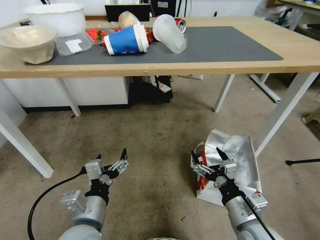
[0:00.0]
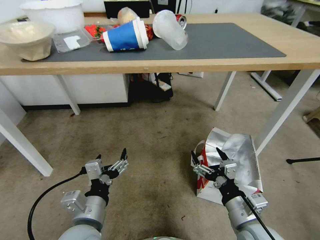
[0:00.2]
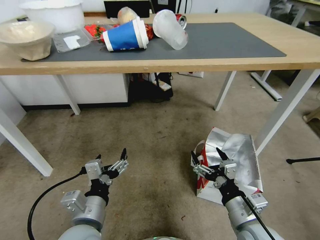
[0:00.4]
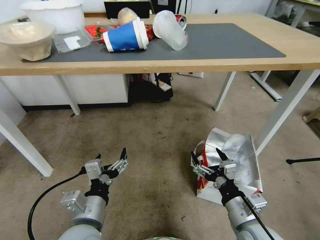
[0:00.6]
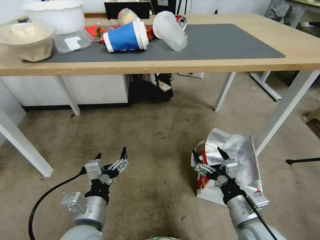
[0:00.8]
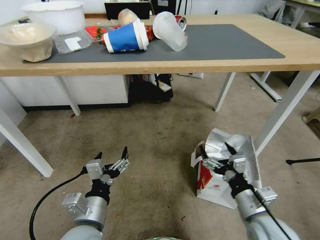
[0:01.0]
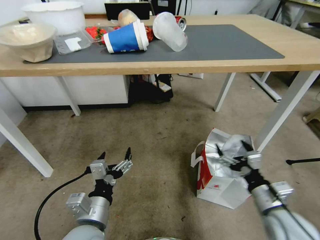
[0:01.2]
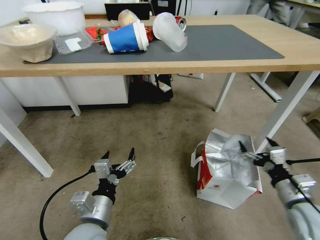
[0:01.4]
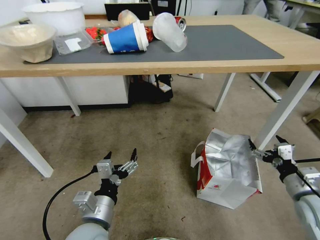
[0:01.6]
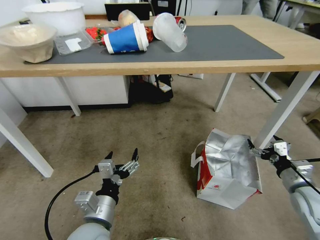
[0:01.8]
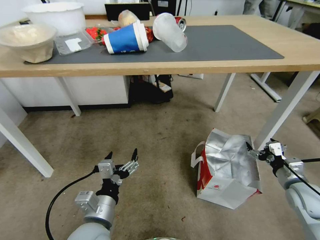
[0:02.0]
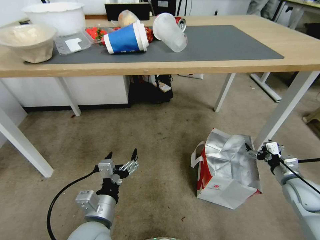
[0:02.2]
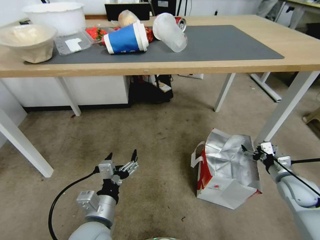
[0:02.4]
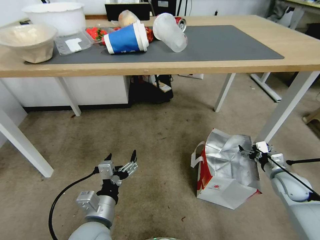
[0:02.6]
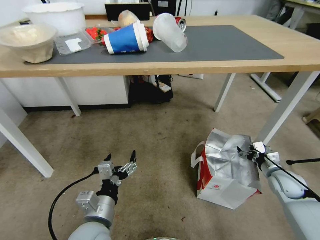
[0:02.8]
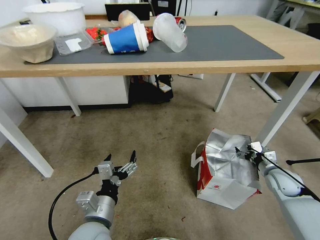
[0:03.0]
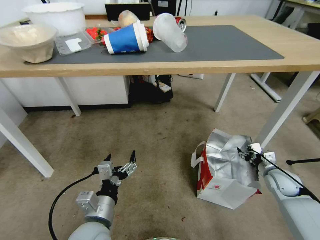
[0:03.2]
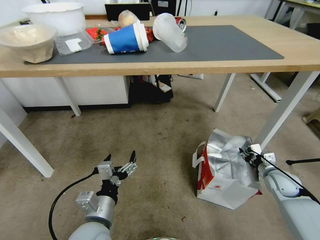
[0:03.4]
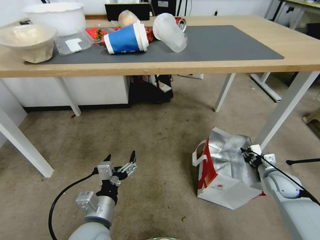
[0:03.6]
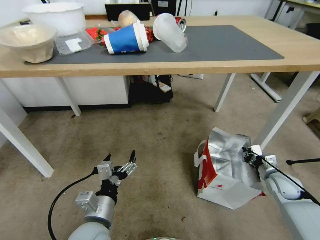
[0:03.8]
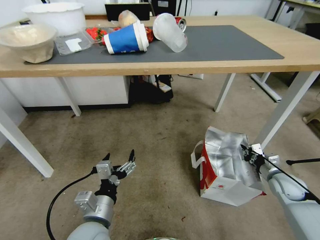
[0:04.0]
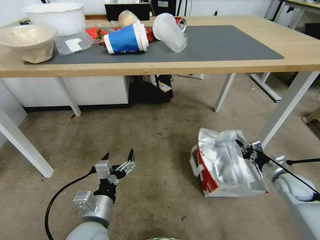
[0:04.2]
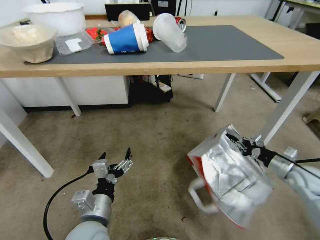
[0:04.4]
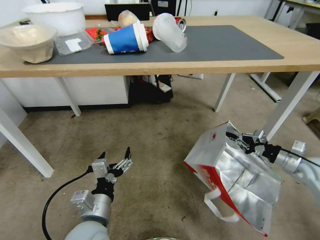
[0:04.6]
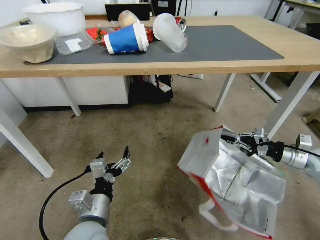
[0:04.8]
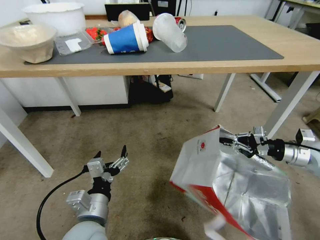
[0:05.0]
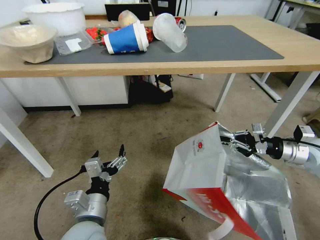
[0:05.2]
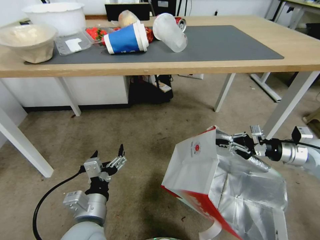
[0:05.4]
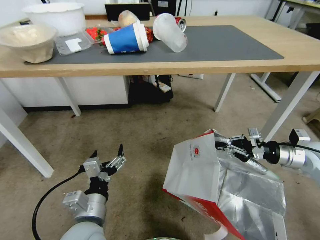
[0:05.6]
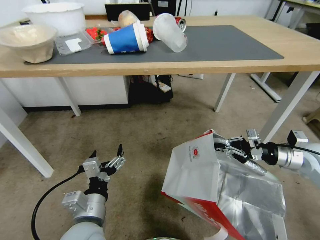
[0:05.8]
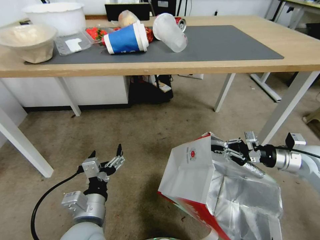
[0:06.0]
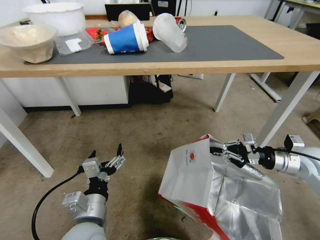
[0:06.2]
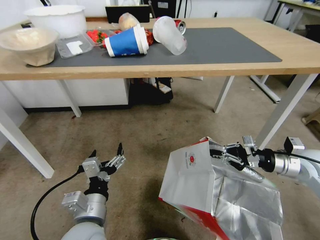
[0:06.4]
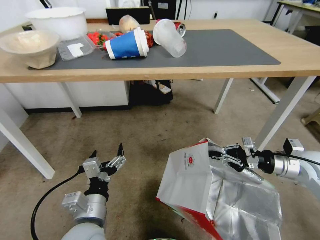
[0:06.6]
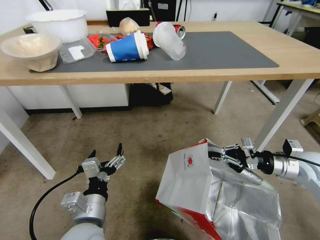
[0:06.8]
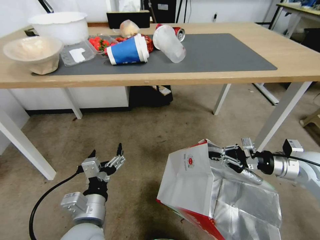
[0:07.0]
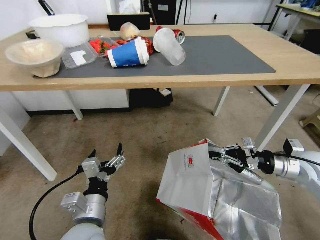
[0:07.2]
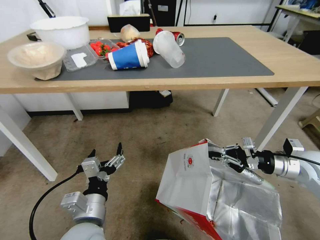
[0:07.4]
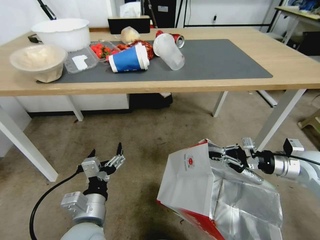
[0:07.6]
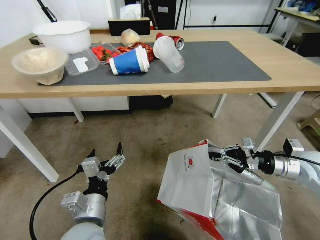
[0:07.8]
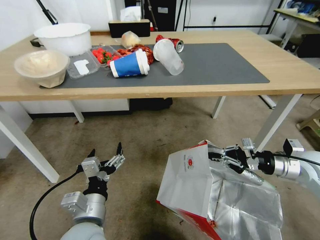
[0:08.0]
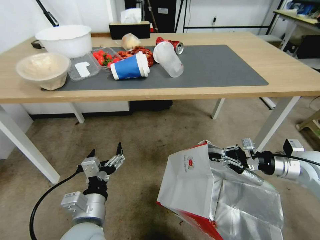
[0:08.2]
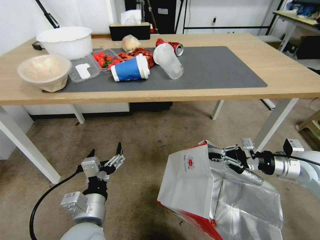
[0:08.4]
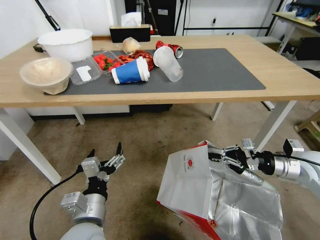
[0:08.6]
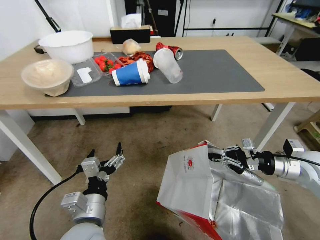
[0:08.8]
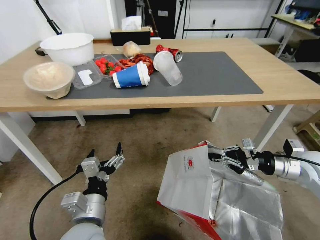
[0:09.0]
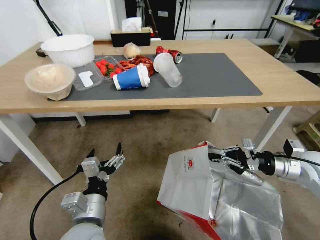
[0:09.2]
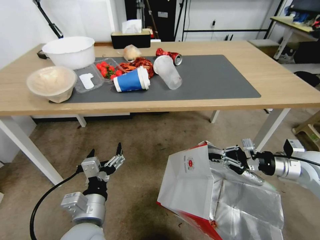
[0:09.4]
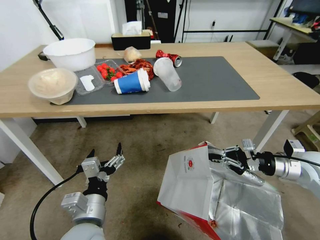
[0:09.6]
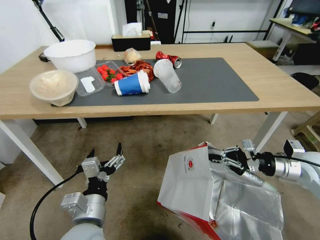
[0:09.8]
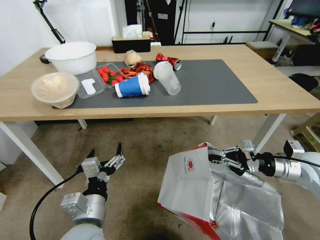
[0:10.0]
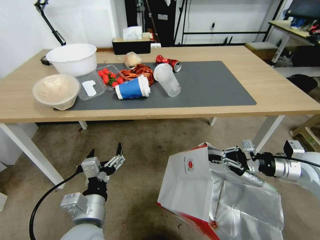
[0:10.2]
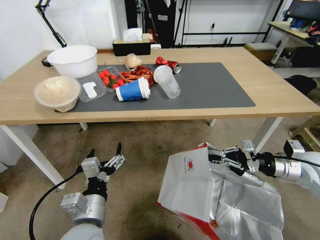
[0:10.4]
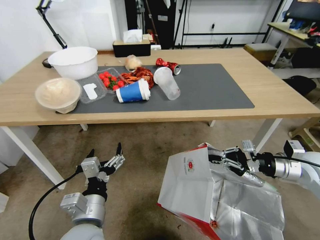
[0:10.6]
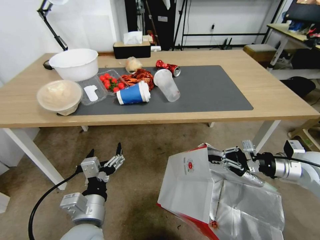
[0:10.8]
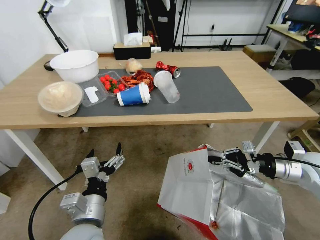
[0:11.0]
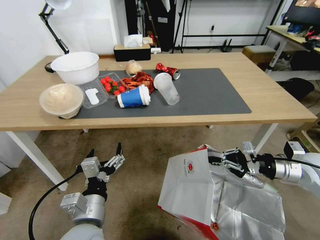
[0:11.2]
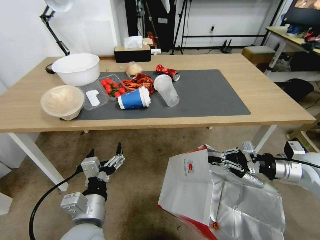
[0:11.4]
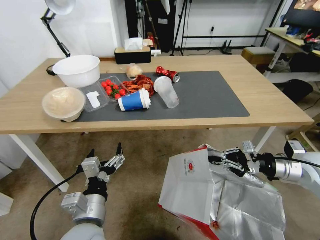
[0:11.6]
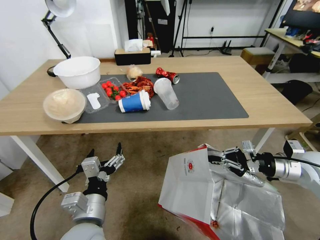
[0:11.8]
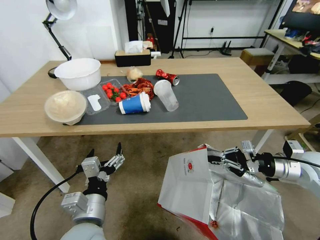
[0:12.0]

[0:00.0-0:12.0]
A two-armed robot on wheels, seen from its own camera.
Task of the whole recording: Pick up the food delivery bag from the floor and place it on the table.
0:00.0 to 0:01.6: The right gripper heads to the right, covering approximately 20 cm.
0:01.6 to 0:03.0: The right gripper is displaced forward and downward by roughly 15 cm.
0:03.0 to 0:04.4: The right gripper shifts by some 5 cm, and closes its fingers.
0:04.4 to 0:06.0: The right gripper goes about 15 cm upward and to the left.

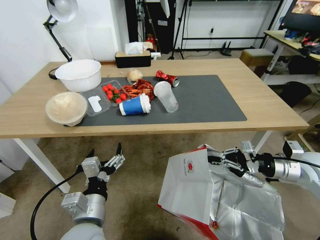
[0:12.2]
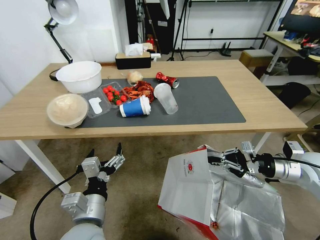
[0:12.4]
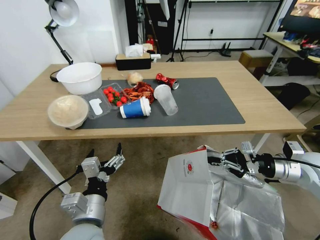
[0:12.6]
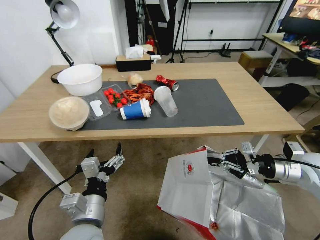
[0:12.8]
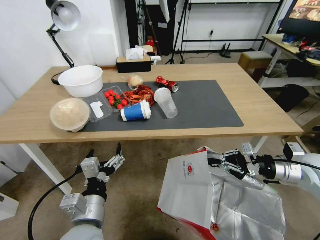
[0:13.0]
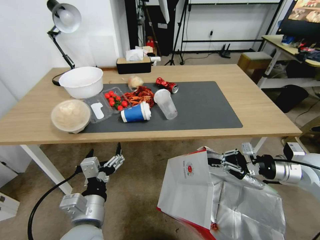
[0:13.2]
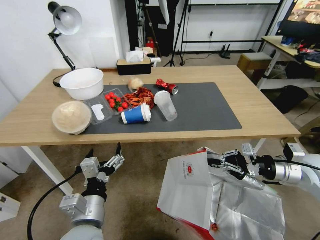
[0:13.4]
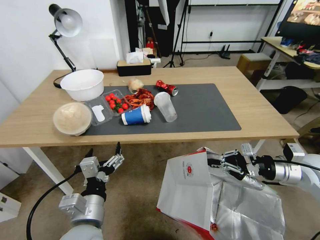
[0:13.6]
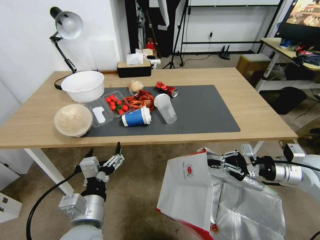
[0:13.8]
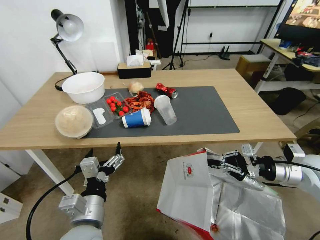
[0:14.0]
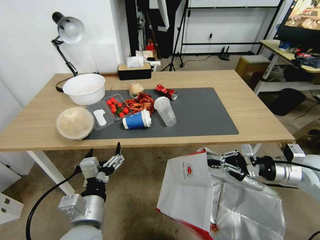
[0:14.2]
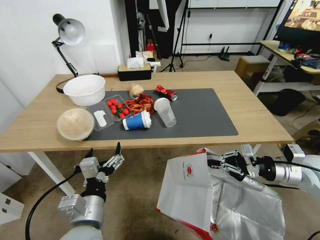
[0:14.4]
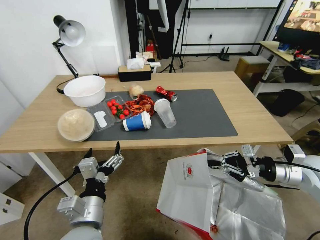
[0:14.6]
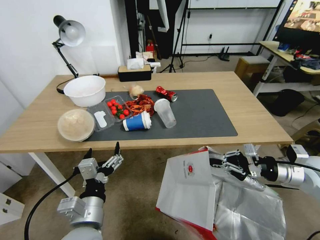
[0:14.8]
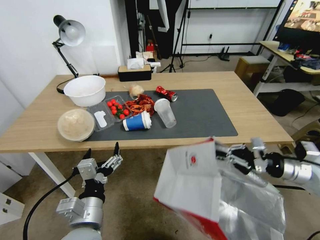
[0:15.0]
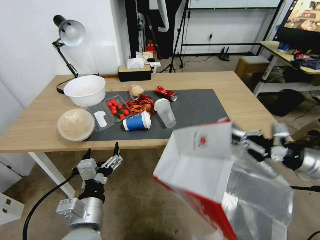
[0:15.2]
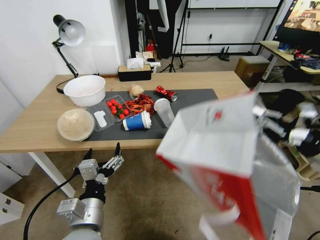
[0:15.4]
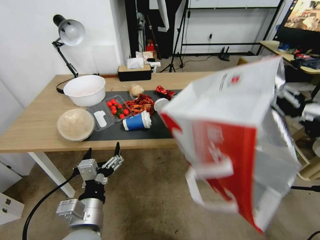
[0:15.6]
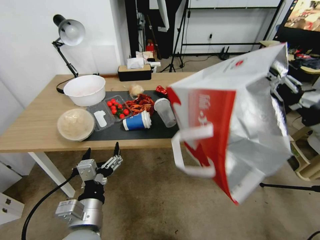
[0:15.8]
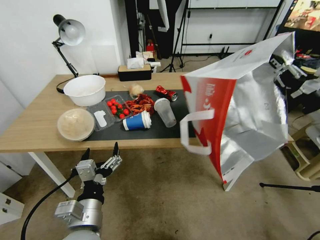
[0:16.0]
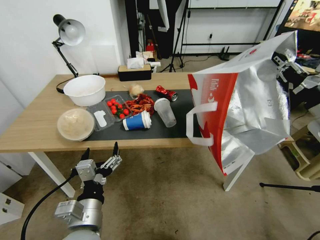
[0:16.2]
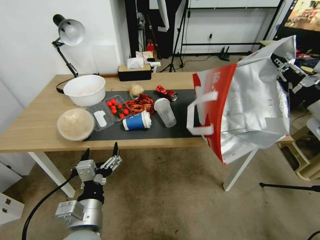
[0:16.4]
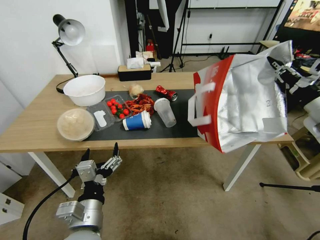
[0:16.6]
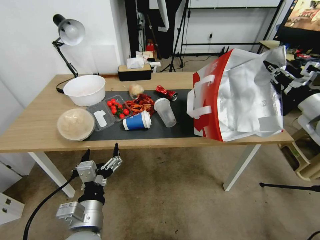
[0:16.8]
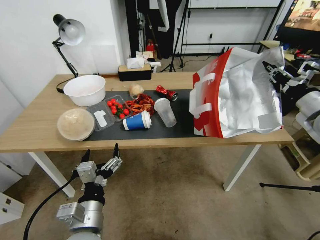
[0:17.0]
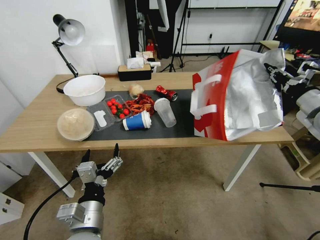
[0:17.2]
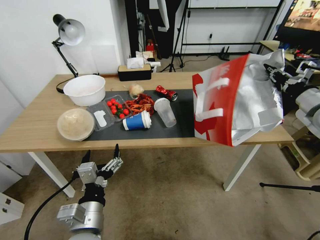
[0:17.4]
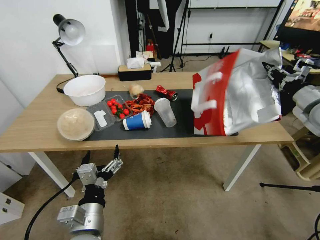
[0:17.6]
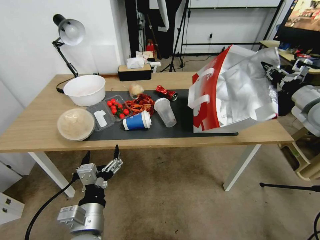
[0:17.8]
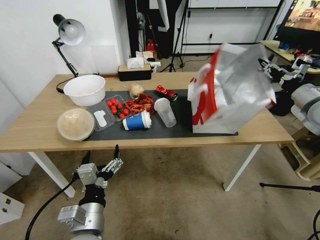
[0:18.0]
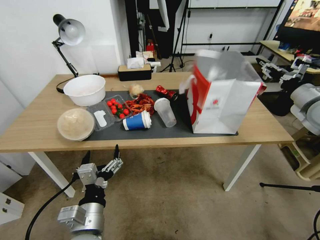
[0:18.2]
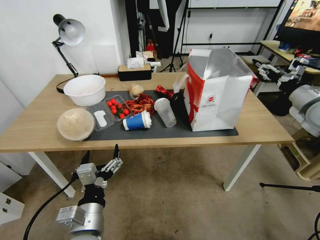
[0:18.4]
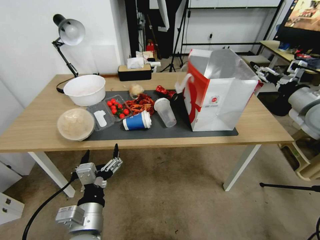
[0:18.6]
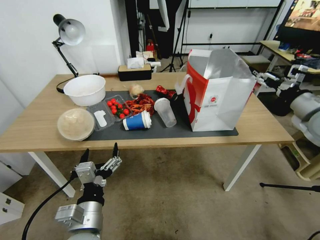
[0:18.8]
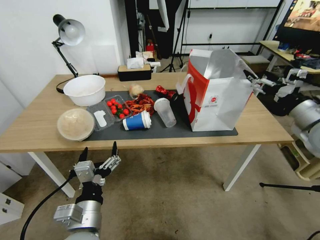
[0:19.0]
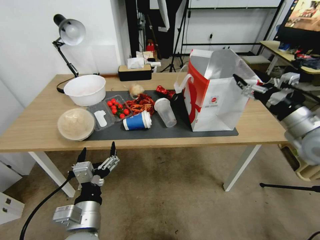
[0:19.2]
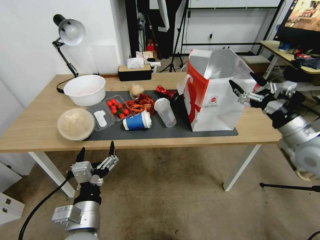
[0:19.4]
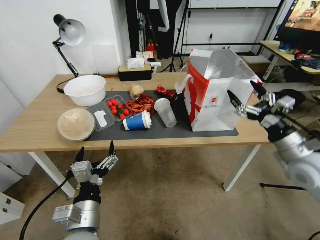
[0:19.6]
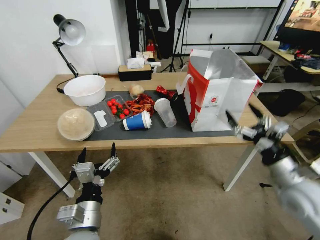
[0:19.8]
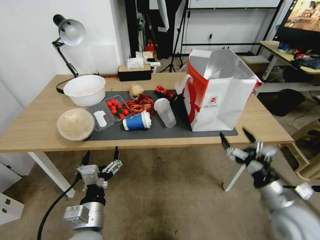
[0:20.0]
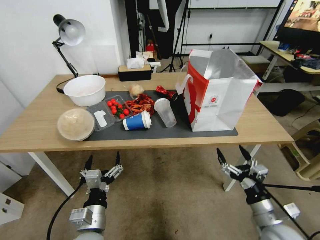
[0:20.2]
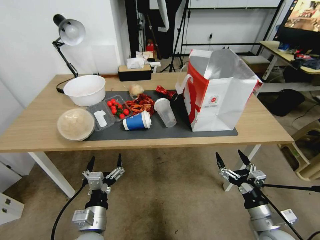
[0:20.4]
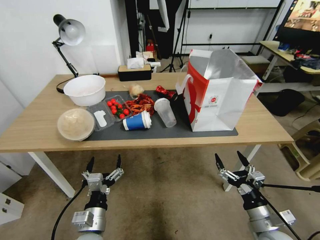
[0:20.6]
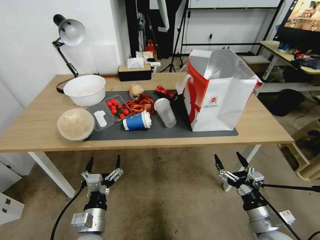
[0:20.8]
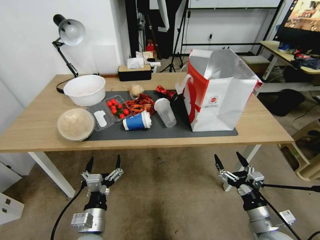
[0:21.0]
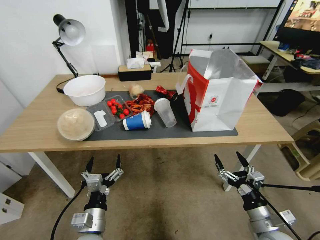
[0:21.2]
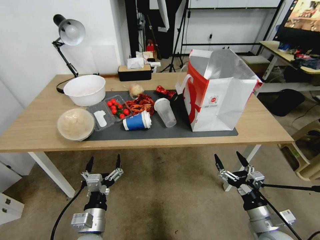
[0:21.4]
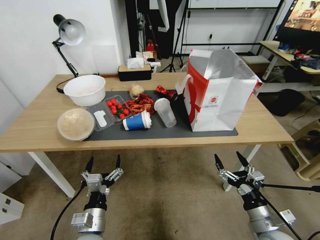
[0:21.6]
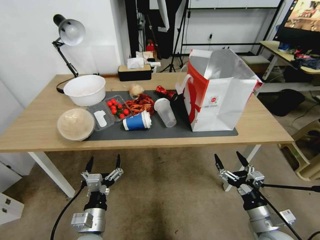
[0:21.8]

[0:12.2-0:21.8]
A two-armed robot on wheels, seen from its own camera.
Task of the whole recording: Pick up the food delivery bag from the floor and place it on the table.
0:13.8 to 0:15.4: The right gripper travels upward by about 10 cm.
0:15.4 to 0:17.0: The right gripper heads forward, covering roughly 10 cm.
0:17.0 to 0:18.6: The right gripper opens its fingers.
0:18.6 to 0:20.2: The right gripper goes approximately 35 cm downward, backward and to the left. The left gripper goes some 5 cm downward.
0:20.2 to 0:21.8: The grippers make only small movements.

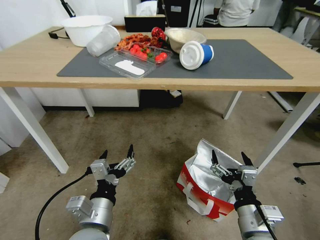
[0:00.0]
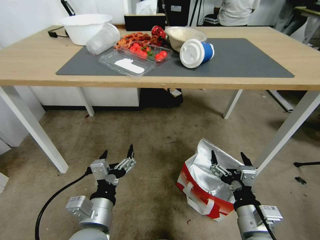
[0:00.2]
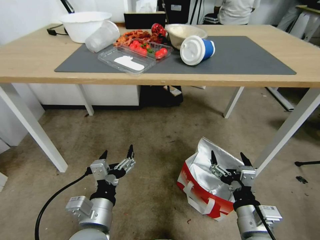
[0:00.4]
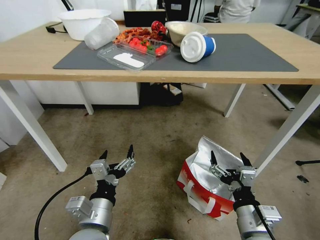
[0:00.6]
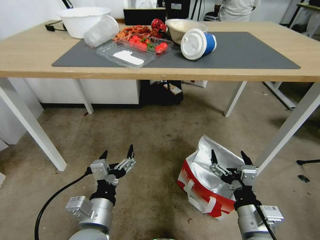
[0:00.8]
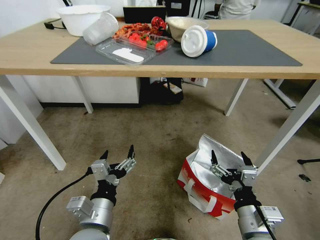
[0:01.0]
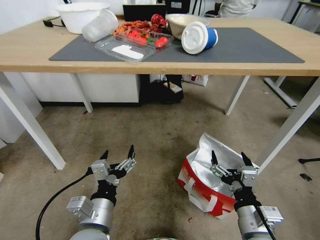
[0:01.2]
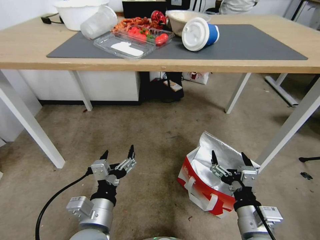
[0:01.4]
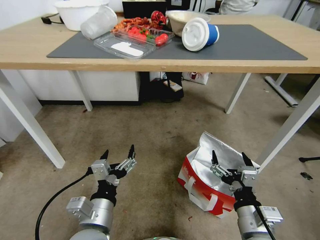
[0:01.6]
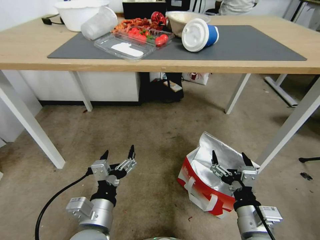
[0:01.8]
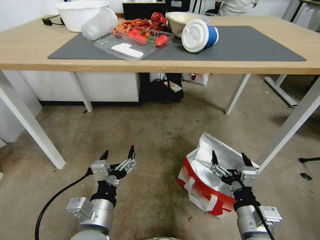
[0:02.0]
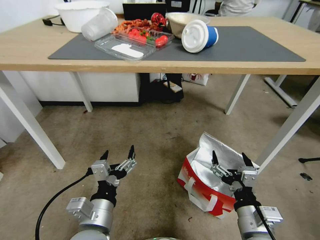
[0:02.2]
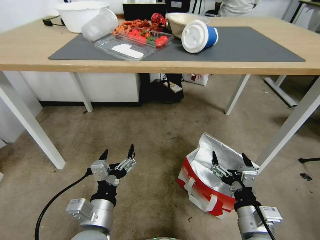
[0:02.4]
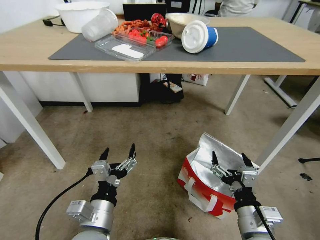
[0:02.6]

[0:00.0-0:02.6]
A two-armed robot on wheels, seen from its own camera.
Task of the whole recording: Pick up the food delivery bag from the floor and place it on the table.
0:01.2 to 0:02.6: The grippers make only small movements.
